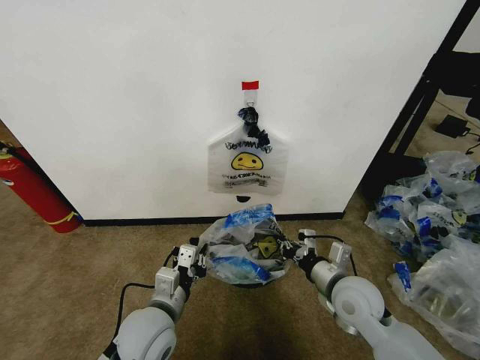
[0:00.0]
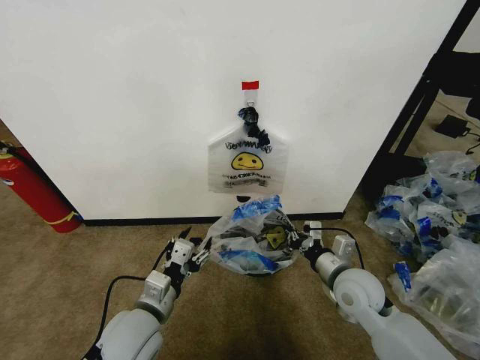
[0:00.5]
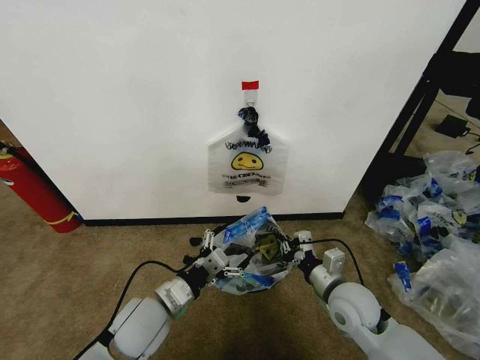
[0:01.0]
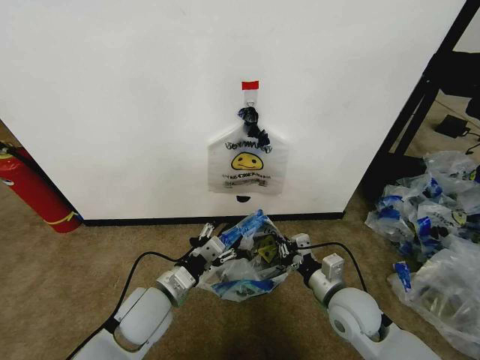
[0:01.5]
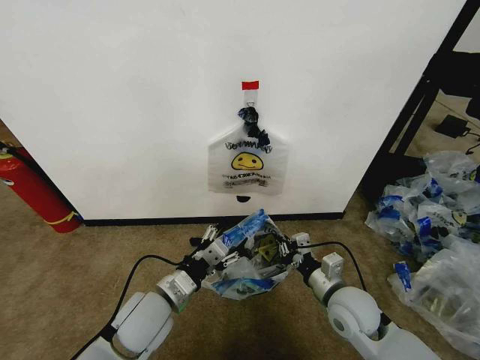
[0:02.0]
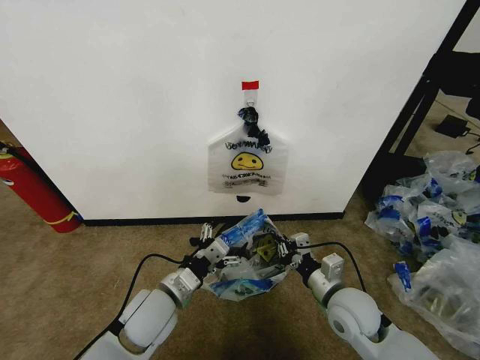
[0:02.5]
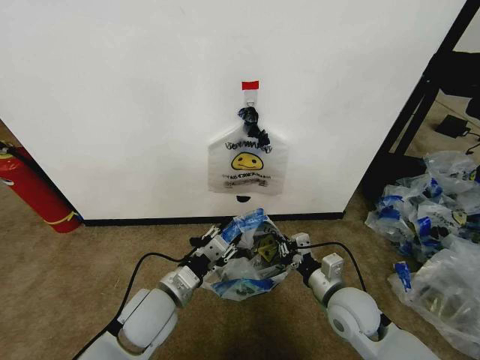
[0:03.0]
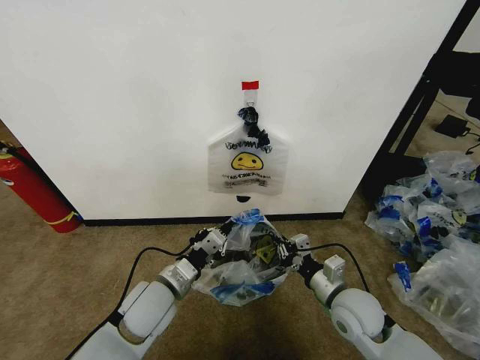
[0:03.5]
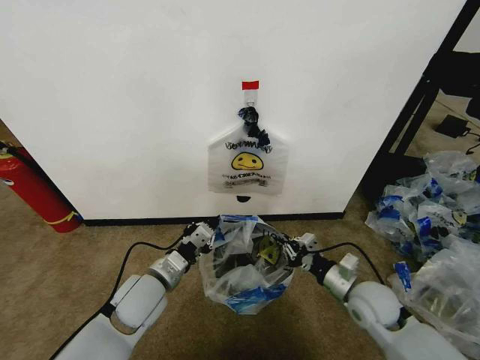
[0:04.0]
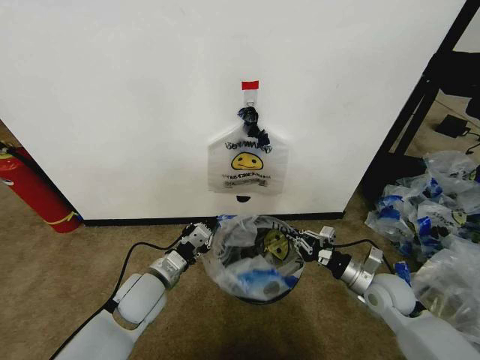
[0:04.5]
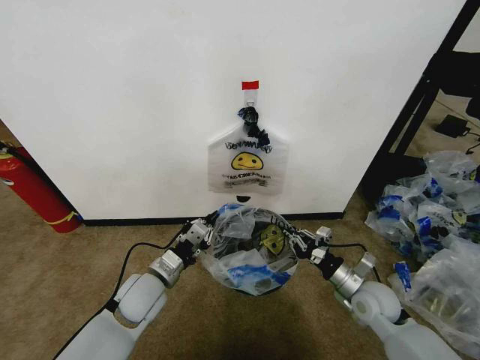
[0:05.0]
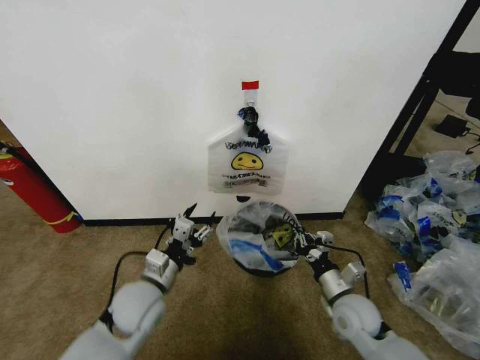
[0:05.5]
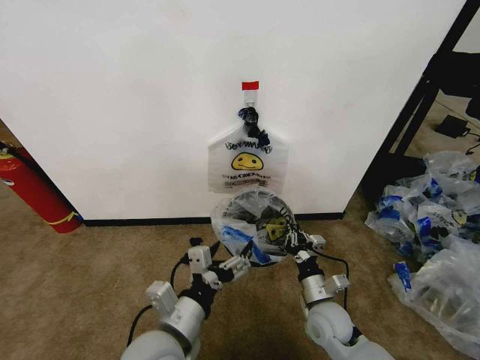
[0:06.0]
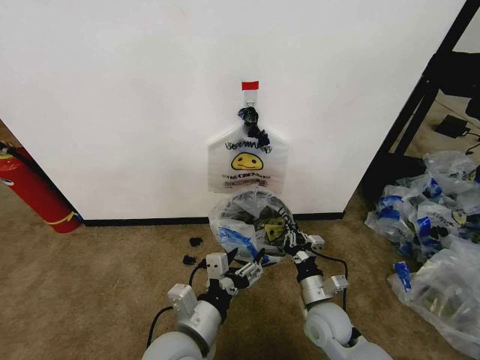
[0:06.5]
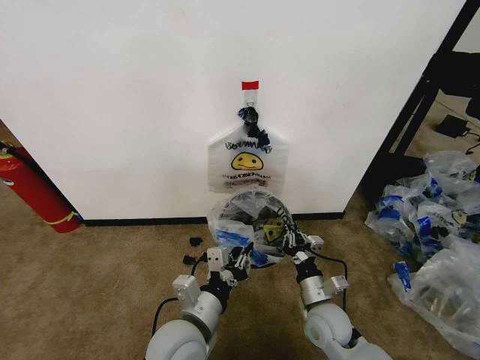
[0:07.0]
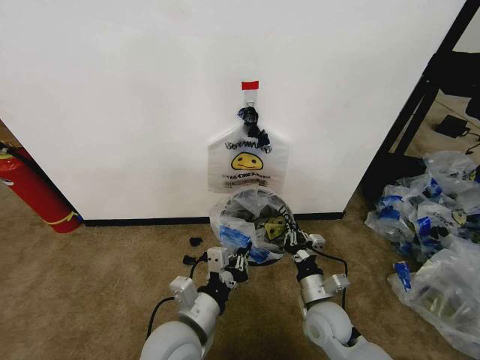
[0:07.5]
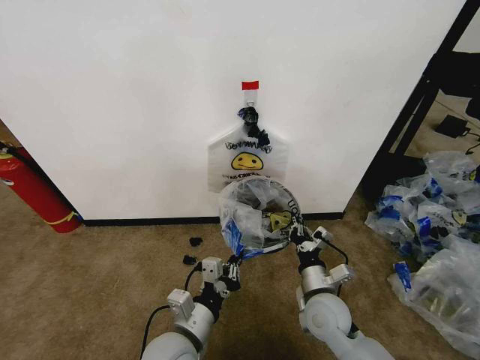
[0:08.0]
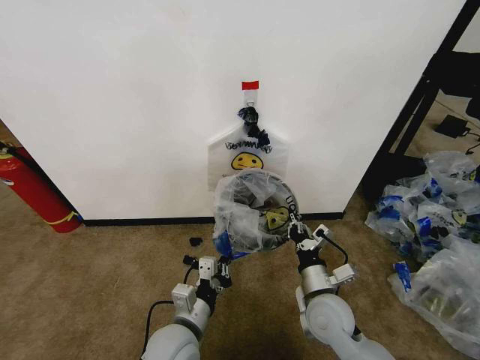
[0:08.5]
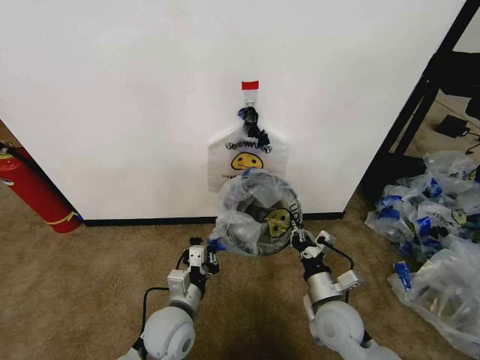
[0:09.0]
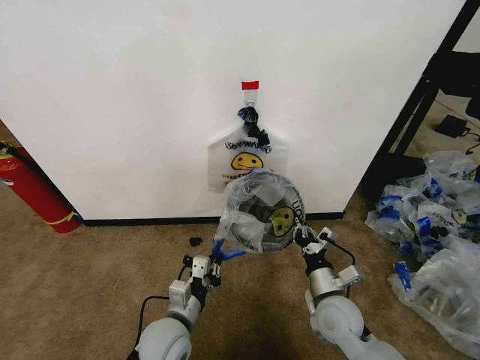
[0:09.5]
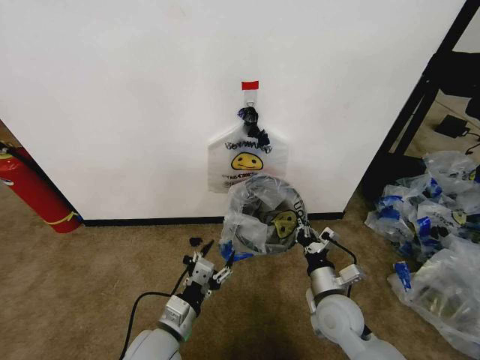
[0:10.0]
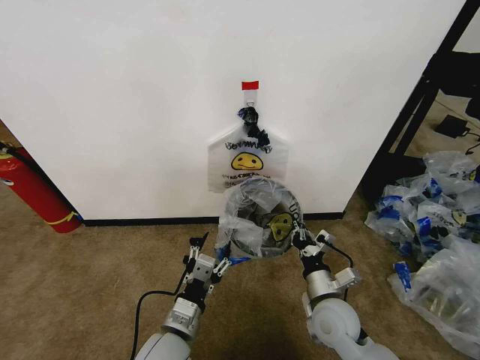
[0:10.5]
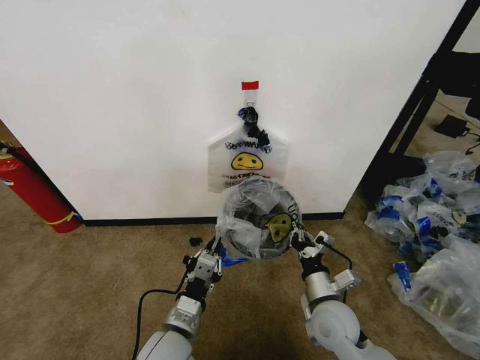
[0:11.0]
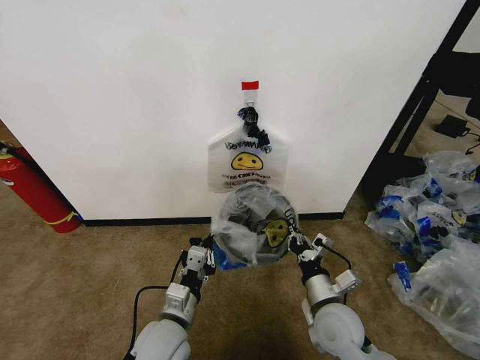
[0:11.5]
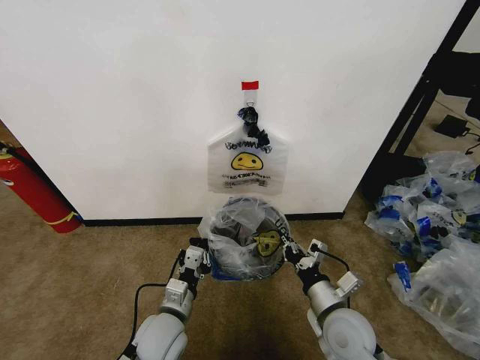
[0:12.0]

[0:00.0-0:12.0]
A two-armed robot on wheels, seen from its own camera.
Task of the whole recording: Pick up the garbage bag from the wall and place it over the trash bin.
0:00.0 to 0:02.0: The left gripper opens up.
0:02.0 to 0:04.0: The left gripper closes, while the right gripper travels to the right by some 5 cm.
0:04.0 to 0:06.0: The left gripper is displaced backward, to the right and upward by about 15 cm, and opens. Meanwhile the right gripper heads to the left and downward, covering approximately 10 cm.
0:06.0 to 0:08.0: The left gripper travels downward by about 5 cm, and closes.
0:08.0 to 0:10.0: The left gripper shifts by some 5 cm, and opens up.
0:10.0 to 0:12.0: The left gripper closes up.

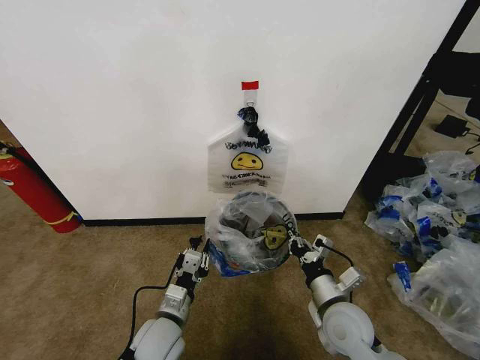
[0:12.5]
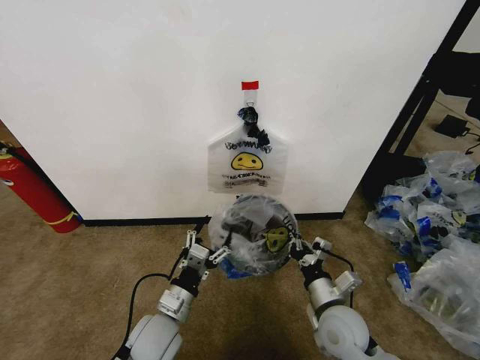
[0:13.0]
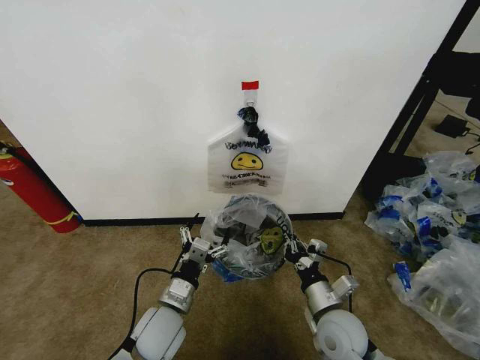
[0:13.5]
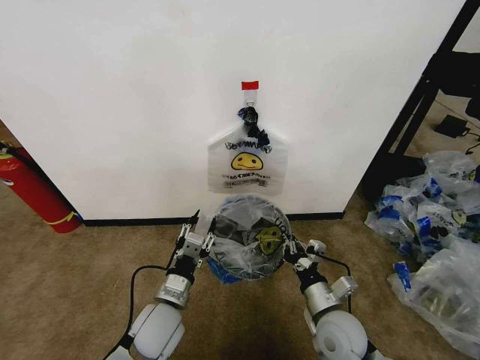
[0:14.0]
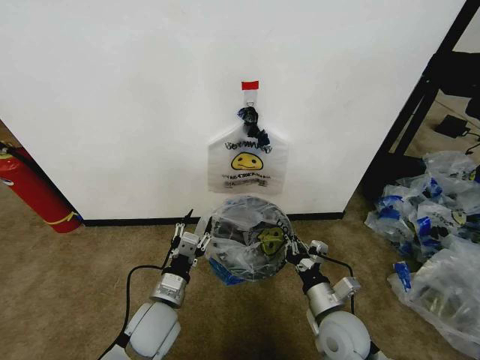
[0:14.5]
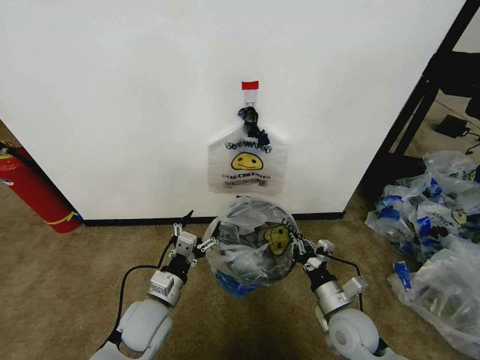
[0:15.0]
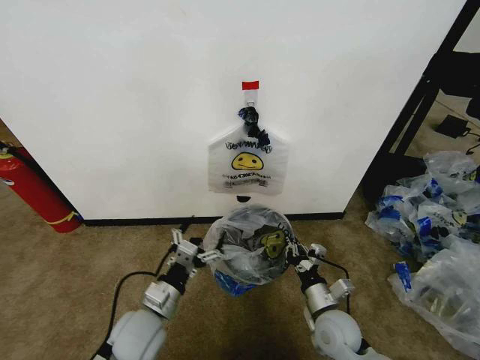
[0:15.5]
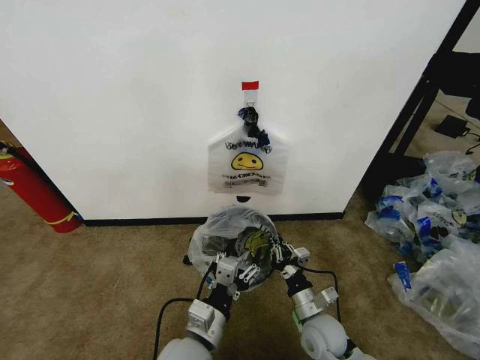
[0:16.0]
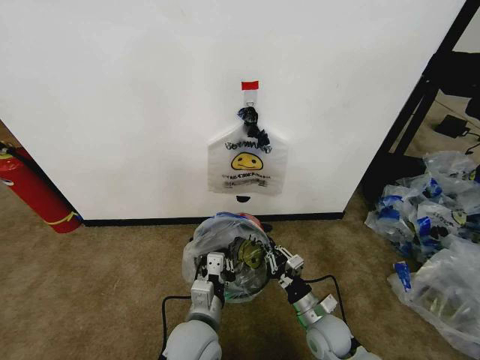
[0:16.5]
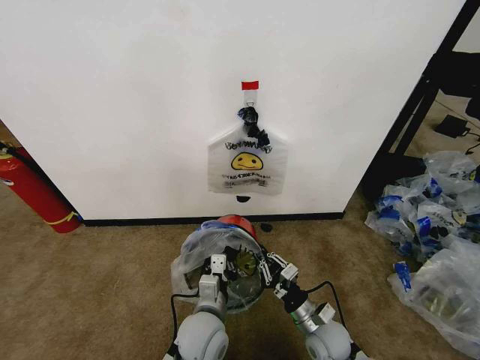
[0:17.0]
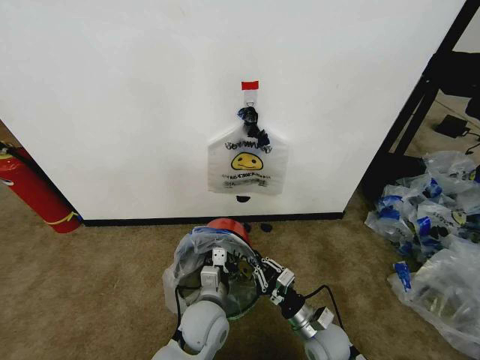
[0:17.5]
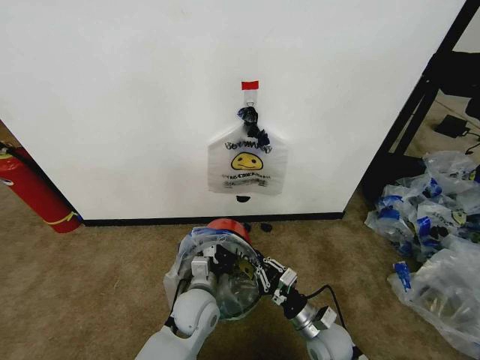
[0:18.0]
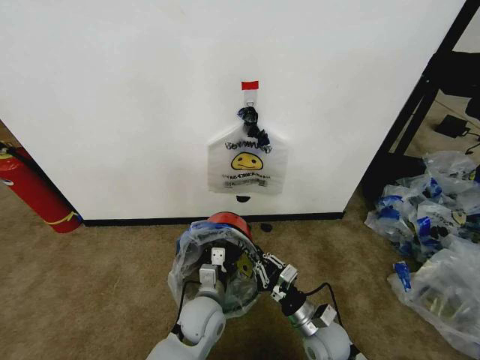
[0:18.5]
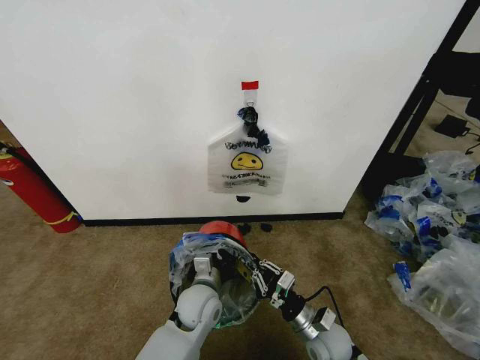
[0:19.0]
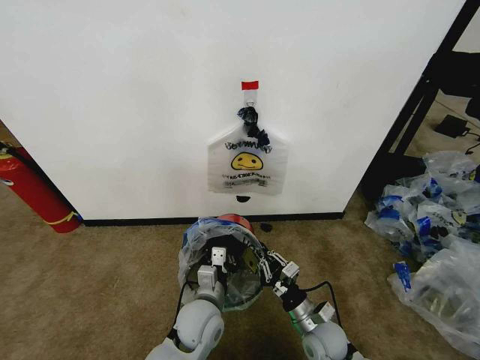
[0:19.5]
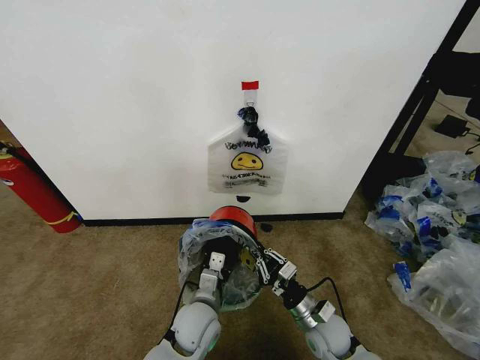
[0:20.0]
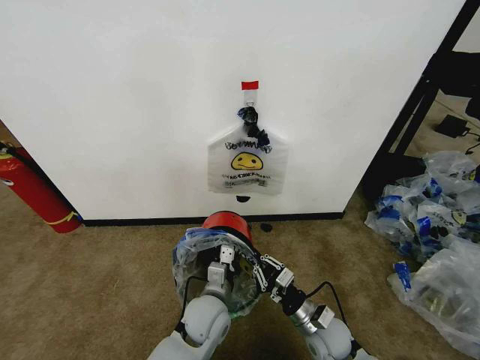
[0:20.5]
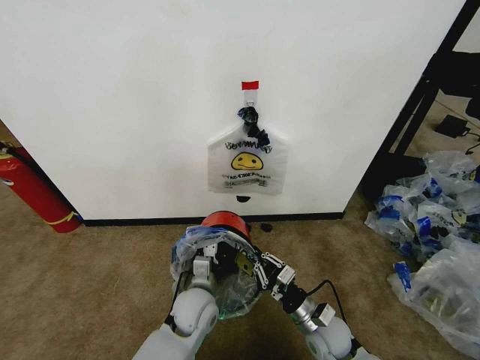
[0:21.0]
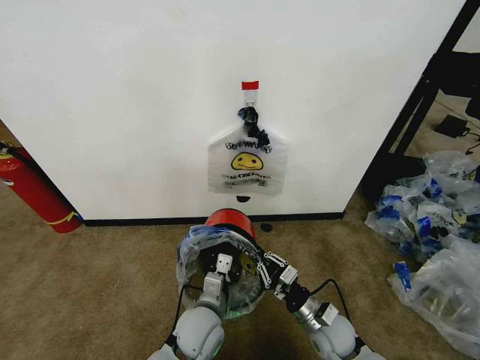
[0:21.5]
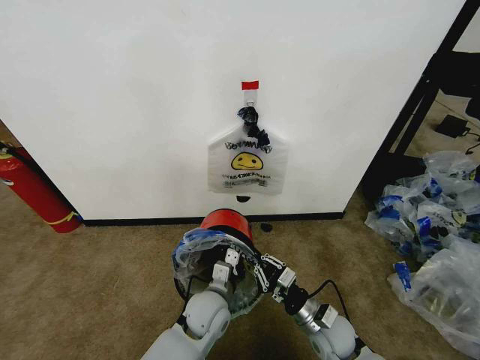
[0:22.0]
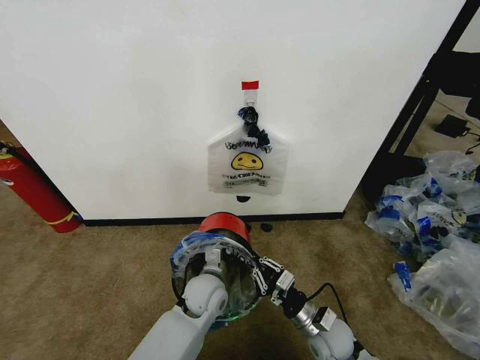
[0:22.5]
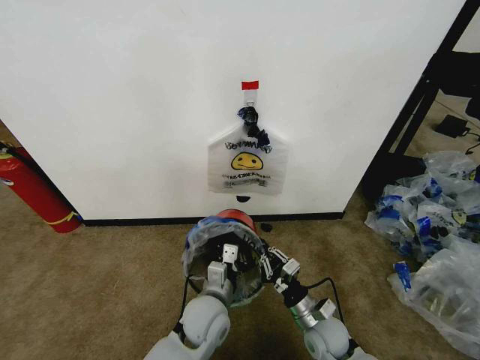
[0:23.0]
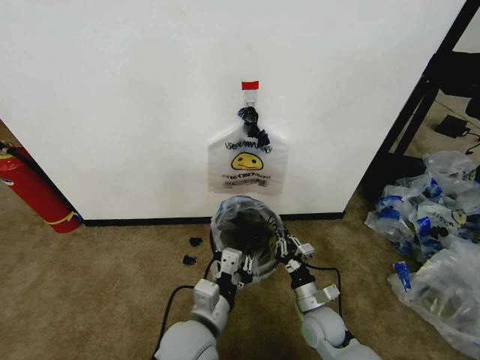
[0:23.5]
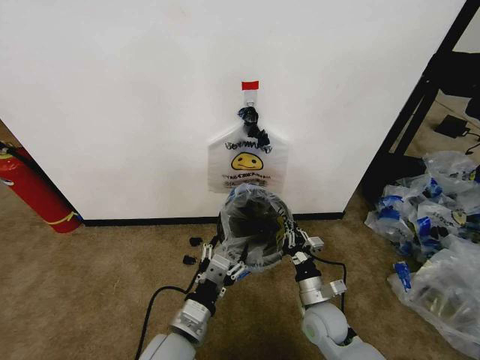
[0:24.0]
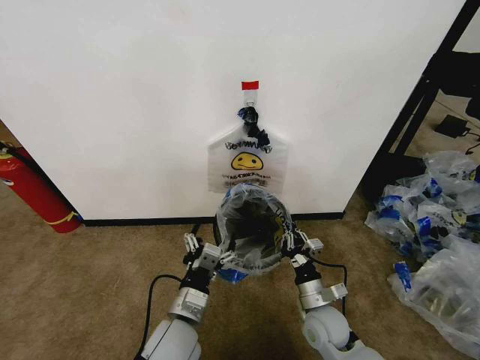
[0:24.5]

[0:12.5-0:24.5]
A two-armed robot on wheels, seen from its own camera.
Task of the whole recording: Pick up the garbage bag from the wall and place it over the trash bin.
0:12.5 to 0:14.5: The left gripper opens up.
0:14.5 to 0:16.5: The left gripper is displaced to the right by roughly 10 cm, and closes its fingers. The right gripper heads downward, covering approximately 10 cm.
0:16.5 to 0:18.5: The left gripper is displaced forward and downward by roughly 10 cm.
0:18.5 to 0:22.5: The grippers make only small movements.
0:22.5 to 0:24.5: The left gripper travels backward by some 10 cm, and opens up.

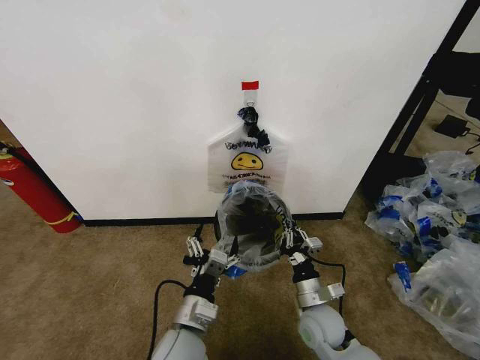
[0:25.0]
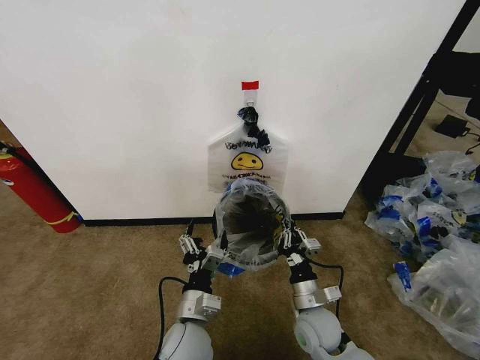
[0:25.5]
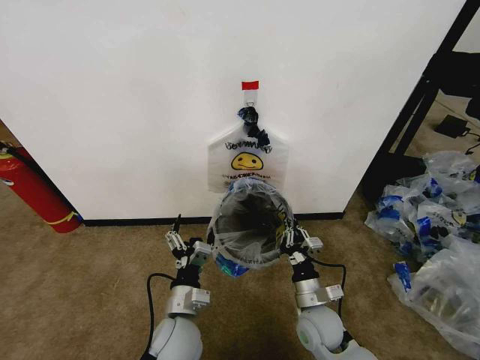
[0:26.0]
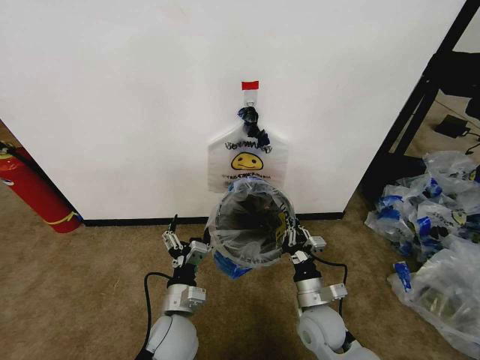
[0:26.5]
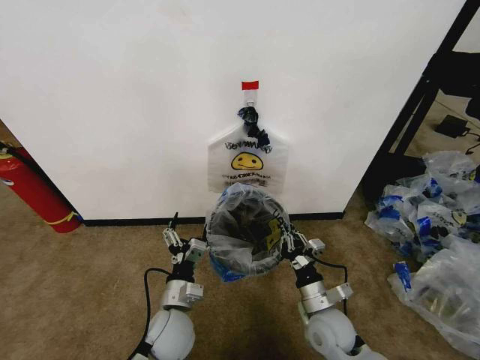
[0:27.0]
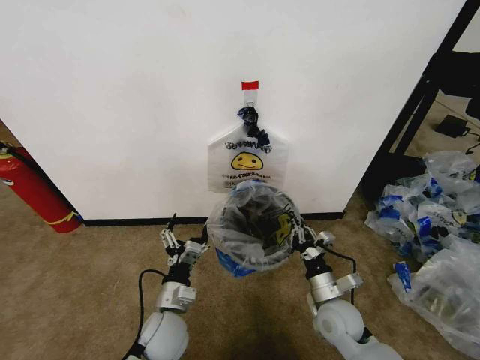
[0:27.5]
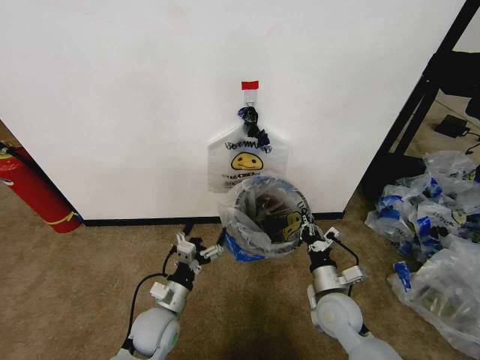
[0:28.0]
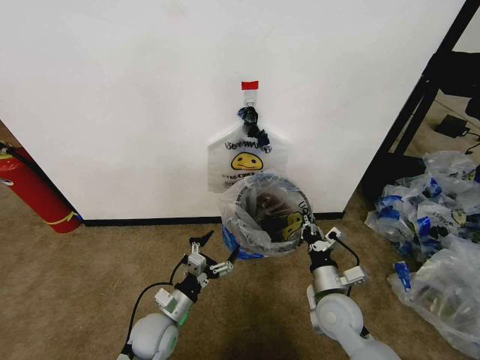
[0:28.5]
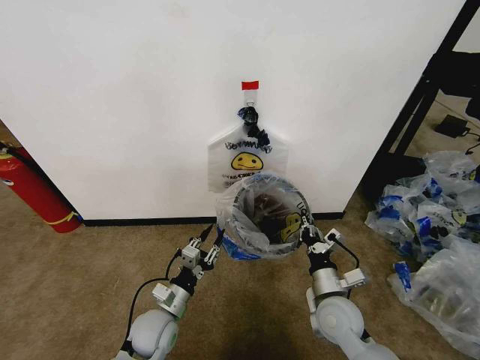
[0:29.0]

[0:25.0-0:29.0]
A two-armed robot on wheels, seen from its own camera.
Task of the whole recording: Pick up the garbage bag from the wall and place it over the trash bin.
0:25.0 to 0:27.0: The left gripper moves forward, approximately 5 cm.
0:27.0 to 0:29.0: The left gripper moves roughly 5 cm, and closes.
